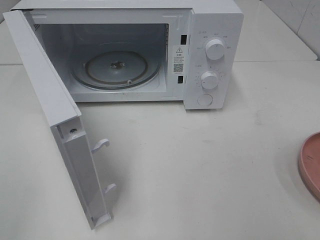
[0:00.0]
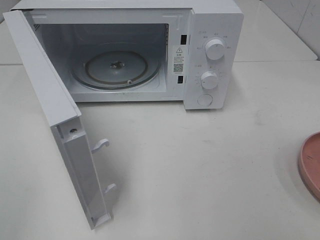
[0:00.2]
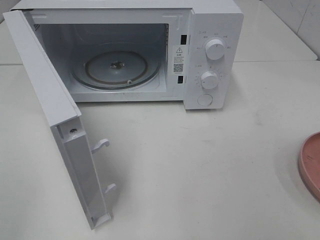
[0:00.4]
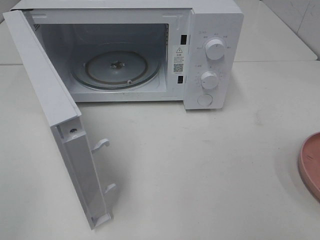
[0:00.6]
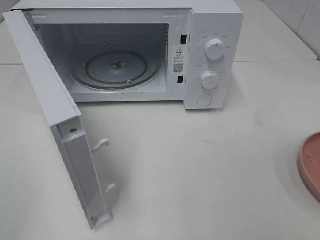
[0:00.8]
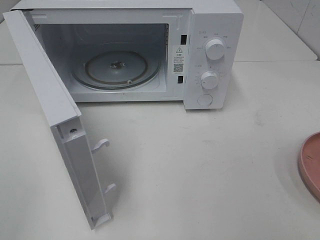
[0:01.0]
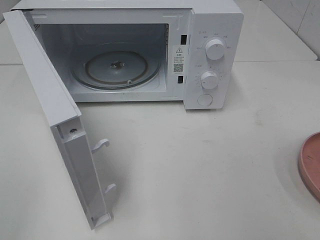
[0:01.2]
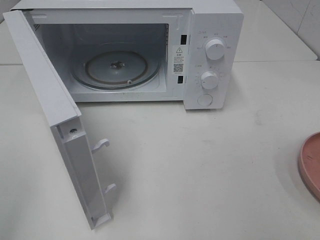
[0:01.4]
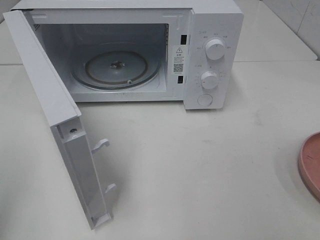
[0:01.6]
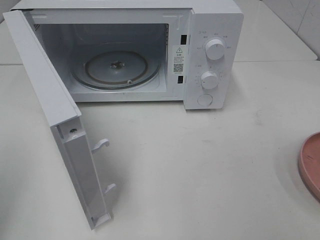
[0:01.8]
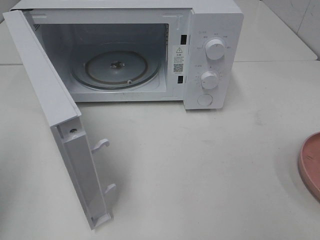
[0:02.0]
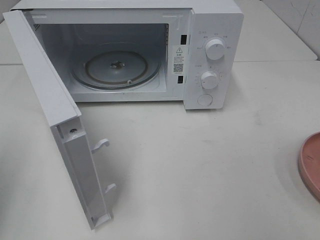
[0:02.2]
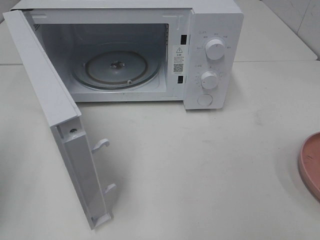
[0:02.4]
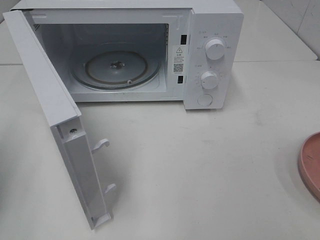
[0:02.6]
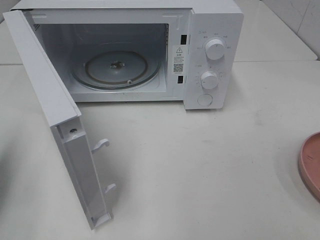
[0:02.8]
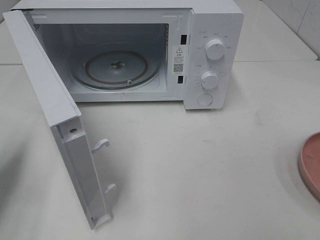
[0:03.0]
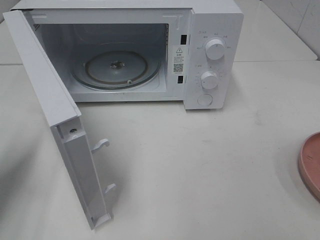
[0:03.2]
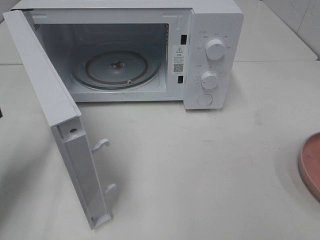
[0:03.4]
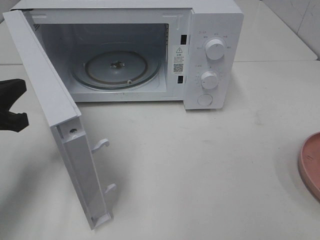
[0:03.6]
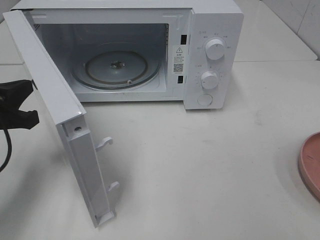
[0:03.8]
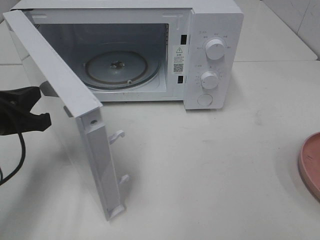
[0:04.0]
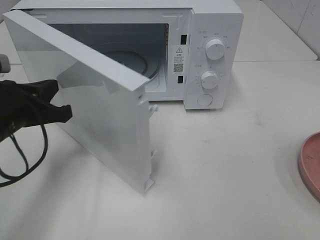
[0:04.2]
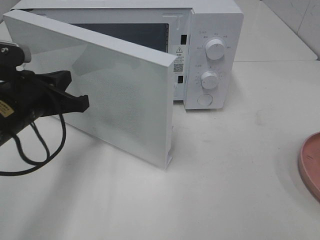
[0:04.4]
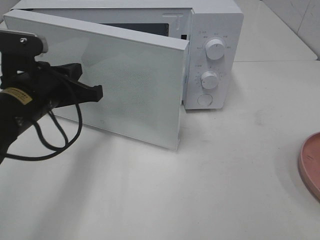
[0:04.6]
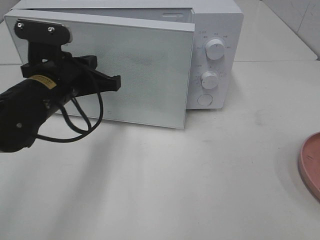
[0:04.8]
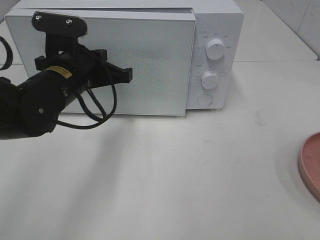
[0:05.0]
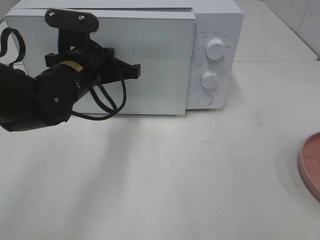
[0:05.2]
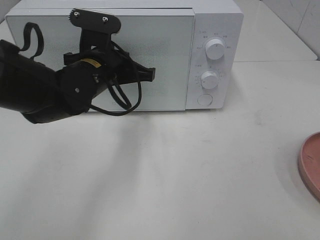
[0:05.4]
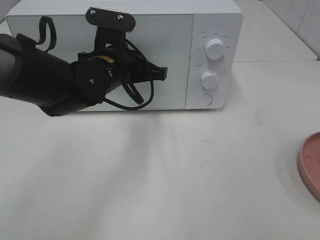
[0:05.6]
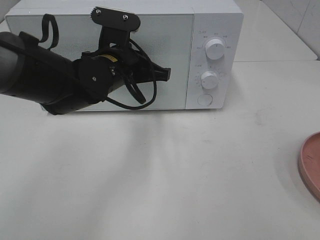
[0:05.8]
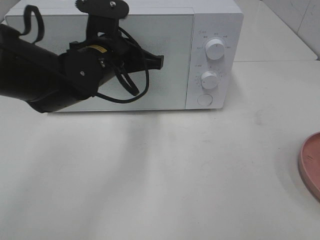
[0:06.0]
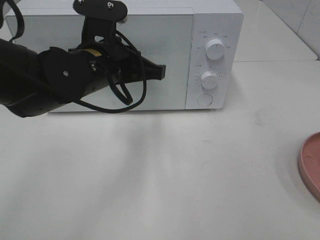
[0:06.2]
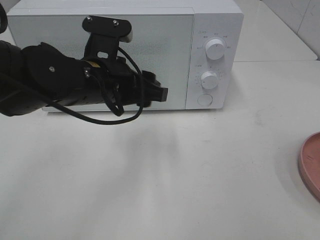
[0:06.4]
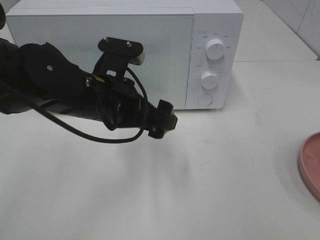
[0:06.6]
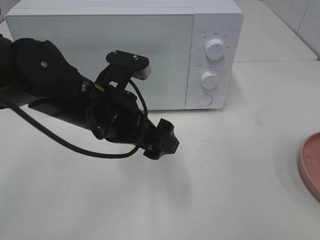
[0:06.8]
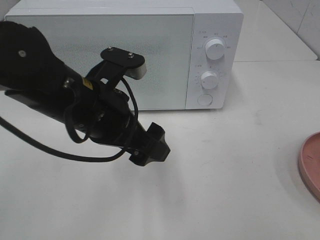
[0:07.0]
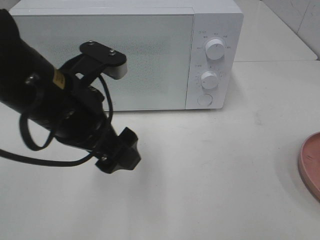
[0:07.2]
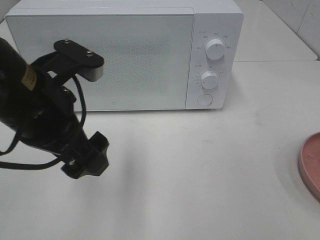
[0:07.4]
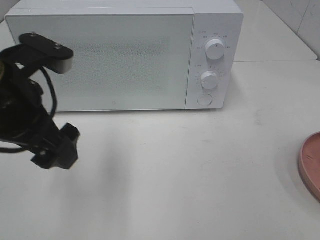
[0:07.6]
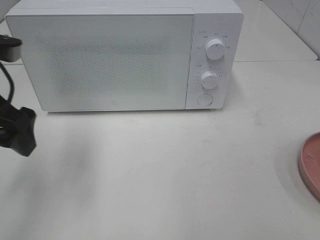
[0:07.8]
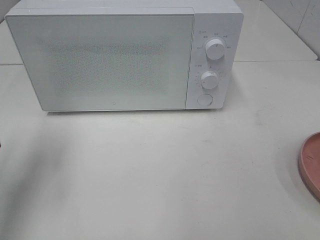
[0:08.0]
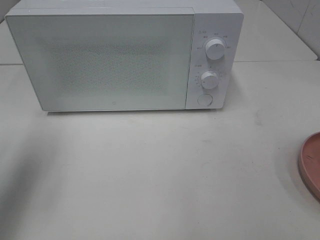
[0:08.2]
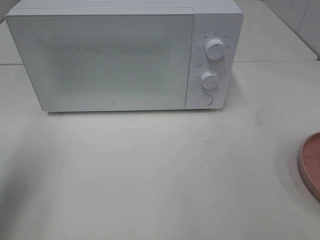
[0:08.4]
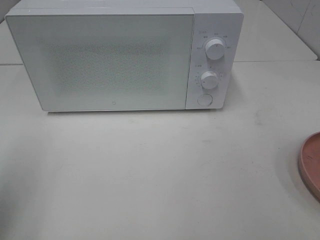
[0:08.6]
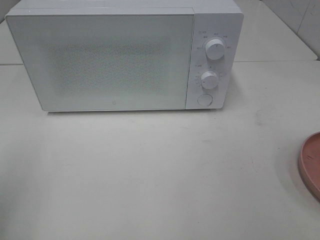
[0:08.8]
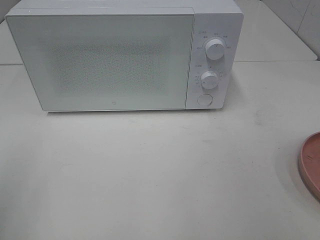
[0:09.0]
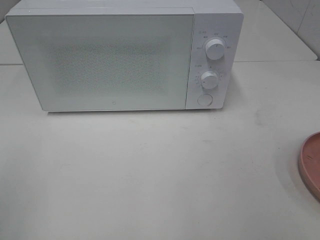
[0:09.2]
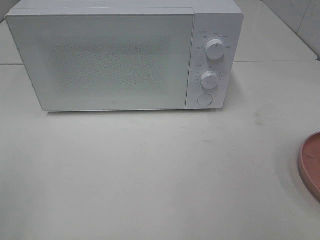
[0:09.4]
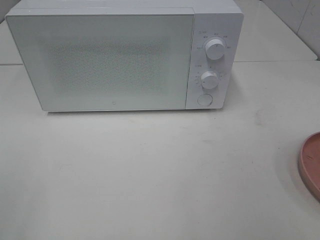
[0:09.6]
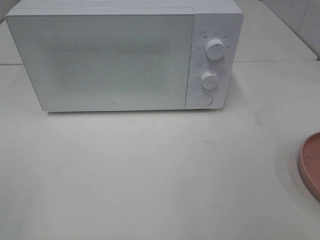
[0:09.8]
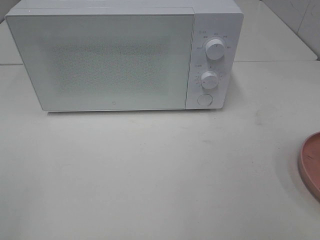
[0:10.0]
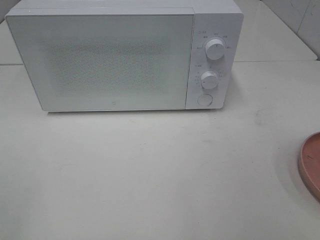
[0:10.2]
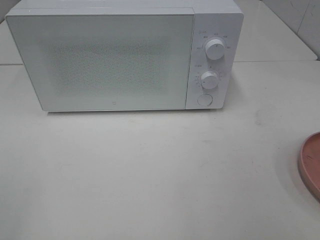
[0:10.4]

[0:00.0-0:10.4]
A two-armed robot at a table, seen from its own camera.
Task of the whole recording: Heat the burger.
Step, 0:00.0 to 0:06.4: Left hand: close the microwave door.
0:01.4 to 0:03.0: The left gripper is displaced forward and downward by roughly 20 cm, and closes its fingers.
0:03.0 to 0:04.4: The left gripper is displaced to the right and forward by about 15 cm.
0:04.4 to 0:06.0: The left gripper shifts roughly 15 cm to the right and forward.
0:06.0 to 0:07.4: The left gripper is displaced backward and to the left by some 15 cm, and opens.
0:07.4 to 0:09.0: The left gripper moves to the left and backward, approximately 25 cm.

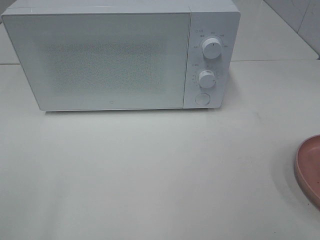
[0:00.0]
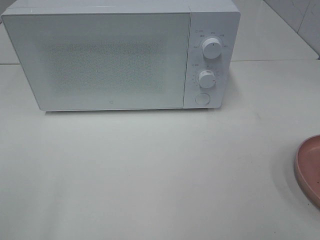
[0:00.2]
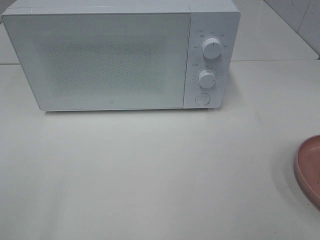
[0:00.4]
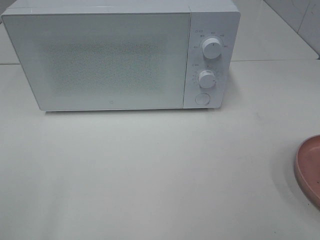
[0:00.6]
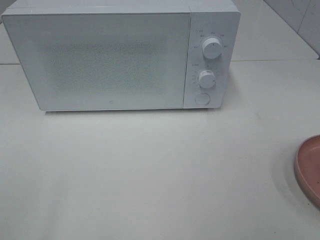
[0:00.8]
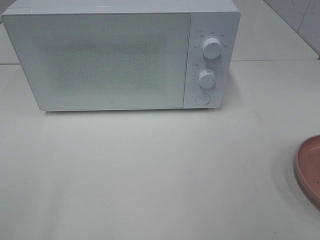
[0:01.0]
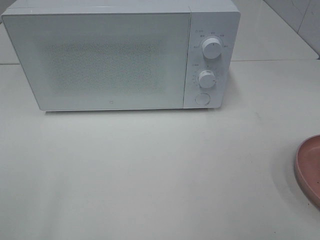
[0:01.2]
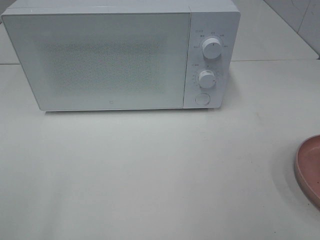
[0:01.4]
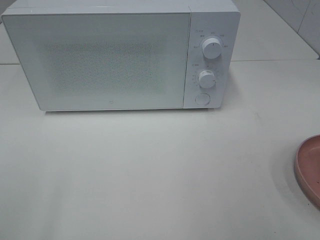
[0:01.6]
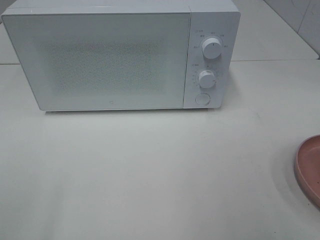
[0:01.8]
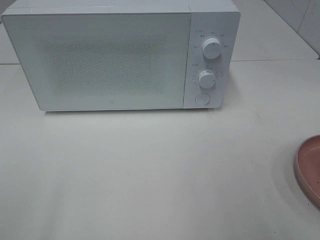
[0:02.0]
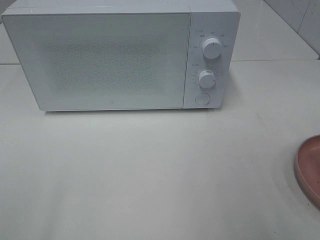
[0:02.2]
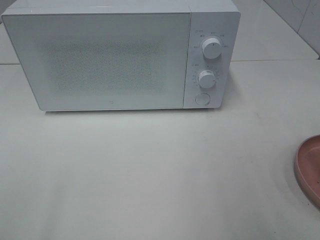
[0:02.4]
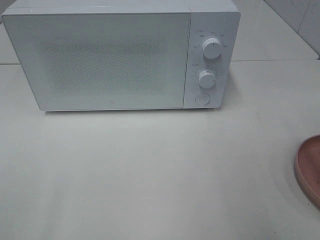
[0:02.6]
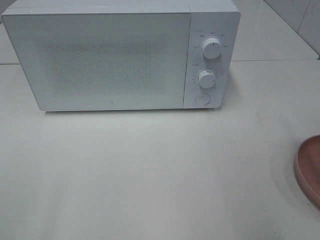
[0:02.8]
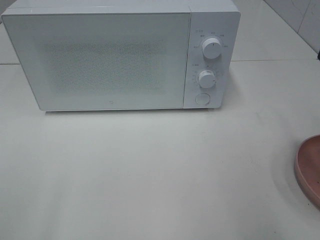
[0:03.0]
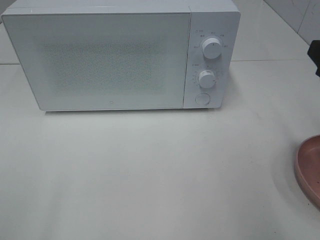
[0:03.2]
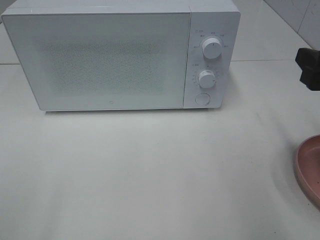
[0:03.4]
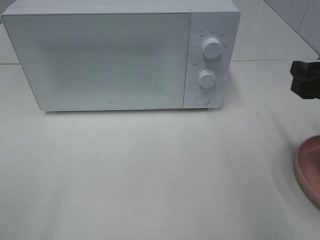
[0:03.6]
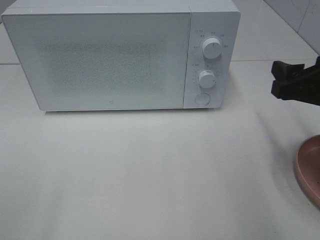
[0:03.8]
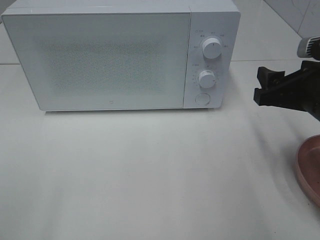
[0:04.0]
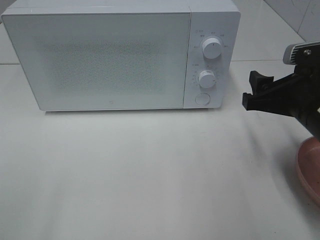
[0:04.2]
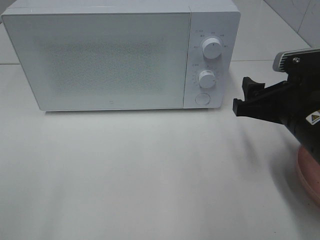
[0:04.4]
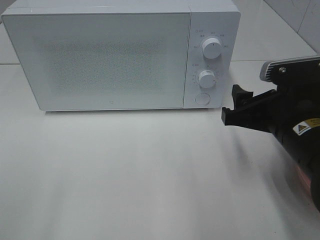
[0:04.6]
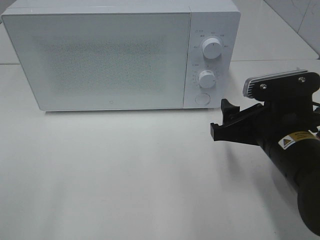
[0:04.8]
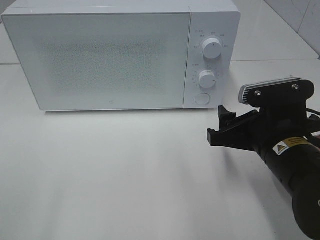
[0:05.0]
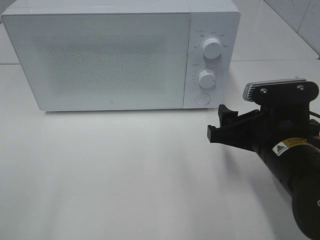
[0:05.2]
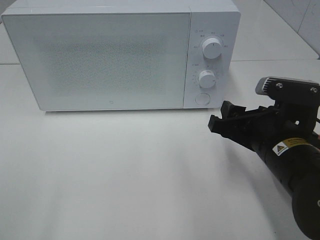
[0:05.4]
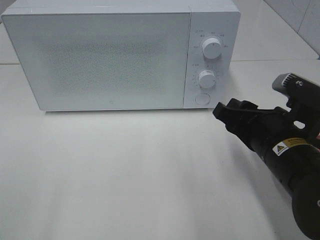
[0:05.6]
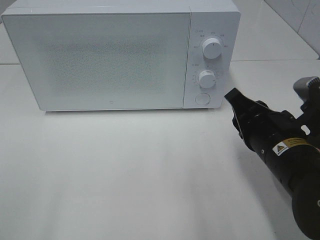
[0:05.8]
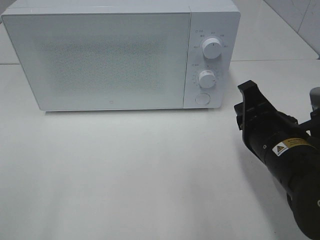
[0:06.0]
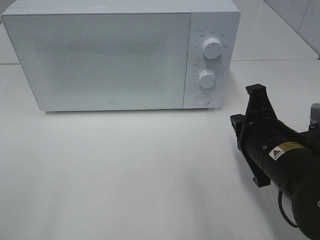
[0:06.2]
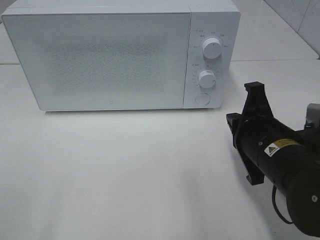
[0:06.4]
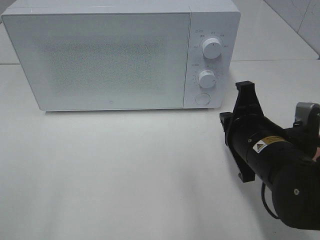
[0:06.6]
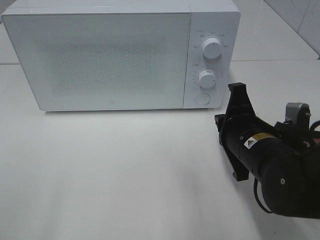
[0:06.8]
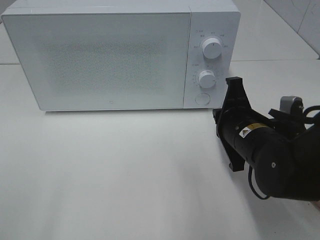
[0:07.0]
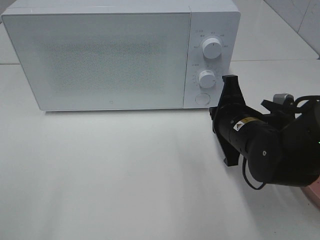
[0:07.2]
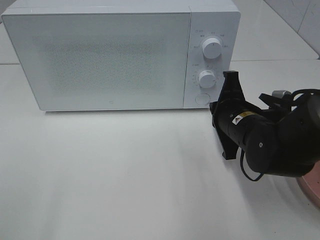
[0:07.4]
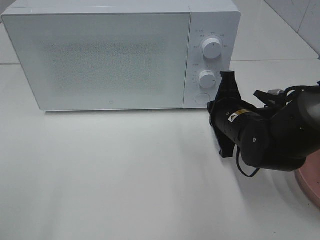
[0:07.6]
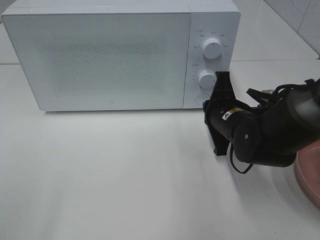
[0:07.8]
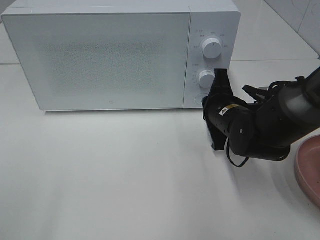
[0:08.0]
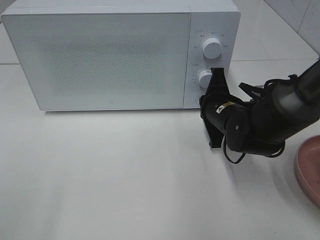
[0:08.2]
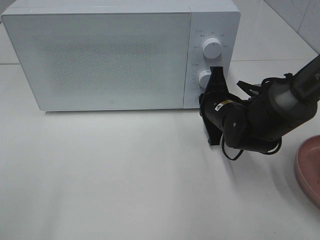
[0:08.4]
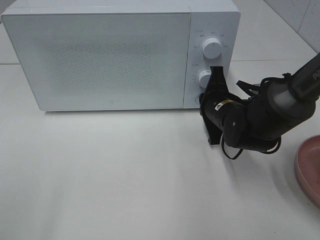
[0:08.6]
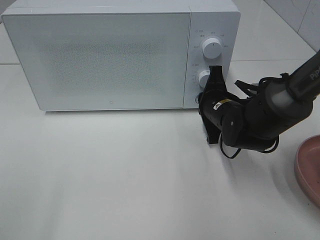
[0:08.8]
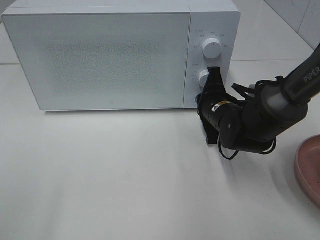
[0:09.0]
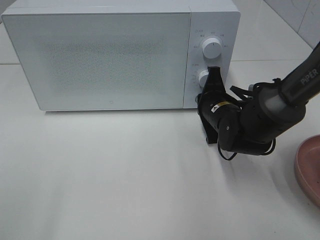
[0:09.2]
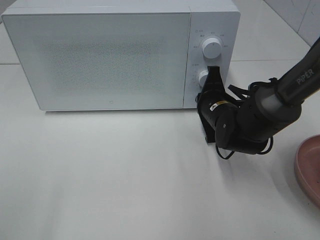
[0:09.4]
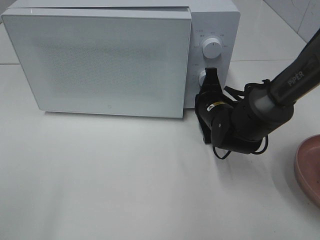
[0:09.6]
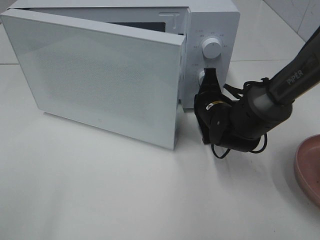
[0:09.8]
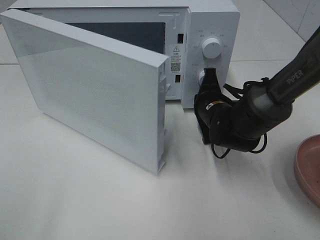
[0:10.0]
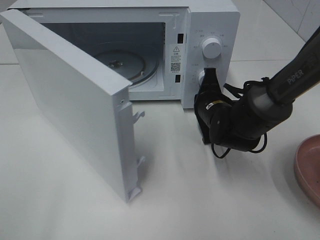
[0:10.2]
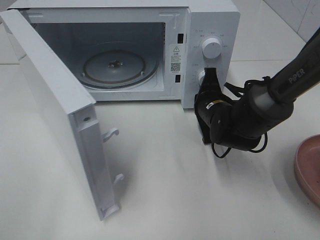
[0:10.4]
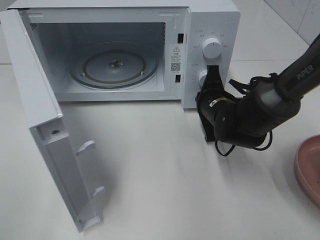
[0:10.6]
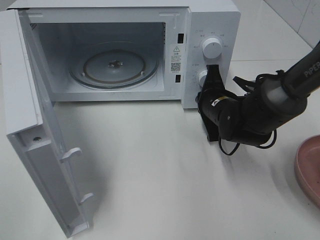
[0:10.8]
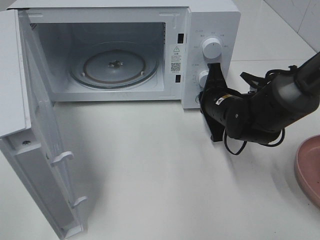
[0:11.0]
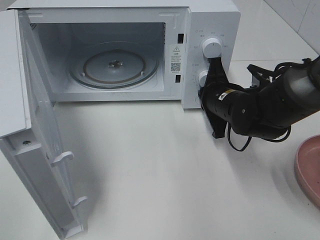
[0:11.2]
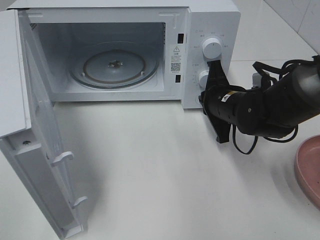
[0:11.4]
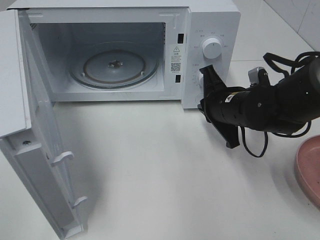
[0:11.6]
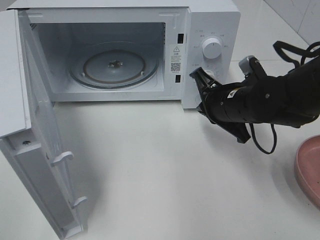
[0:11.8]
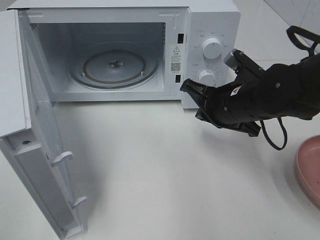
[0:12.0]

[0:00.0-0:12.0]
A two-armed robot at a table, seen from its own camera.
Task of the whole recording: Heat the burger.
Step, 0:00.0 to 0:11.2: Right hand: press the switch.
0:03.0 to 0:04.4: The right gripper goes roughly 10 cm downward and to the left.
0:04.4 to 0:06.0: The right gripper closes up.
0:06.0 to 0:07.6: The right gripper goes some 10 cm forward.
0:07.6 to 0:09.0: The right gripper moves forward, about 5 cm.
0:10.4 to 0:12.0: The right gripper heads upward and backward, covering about 10 cm.
